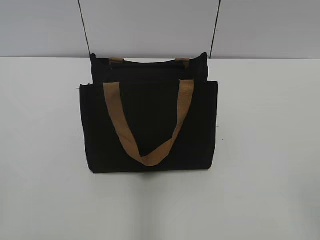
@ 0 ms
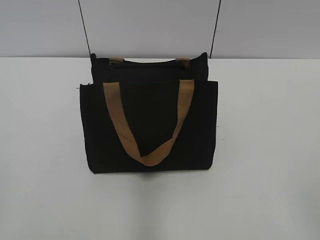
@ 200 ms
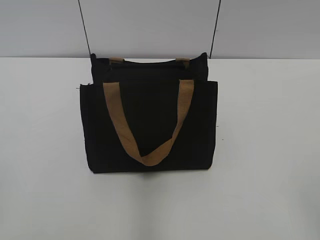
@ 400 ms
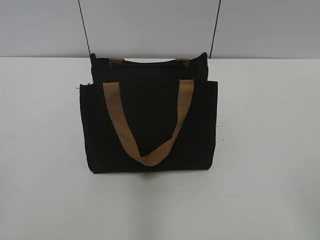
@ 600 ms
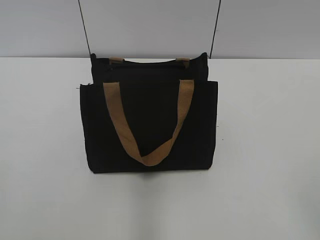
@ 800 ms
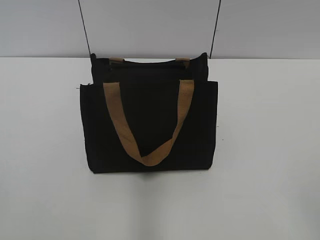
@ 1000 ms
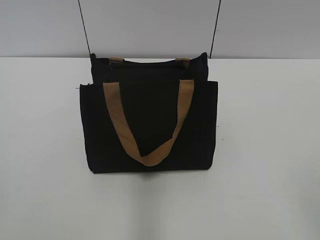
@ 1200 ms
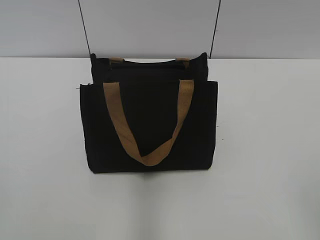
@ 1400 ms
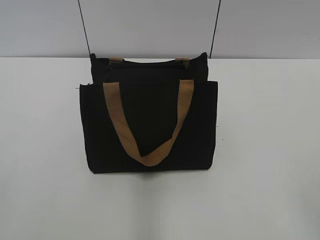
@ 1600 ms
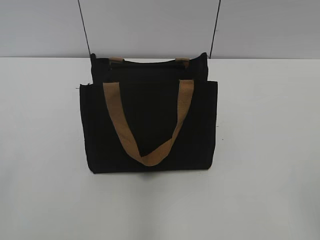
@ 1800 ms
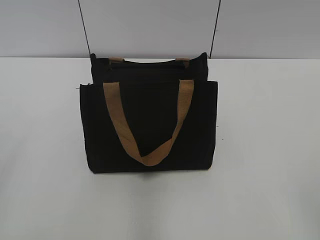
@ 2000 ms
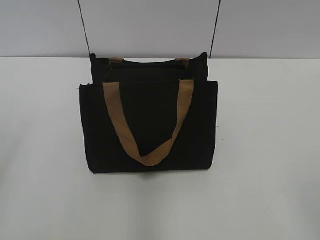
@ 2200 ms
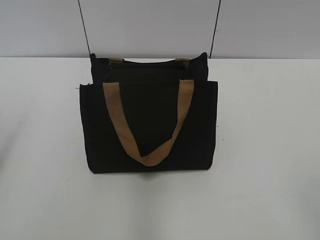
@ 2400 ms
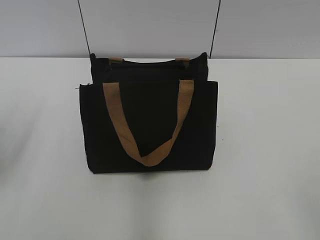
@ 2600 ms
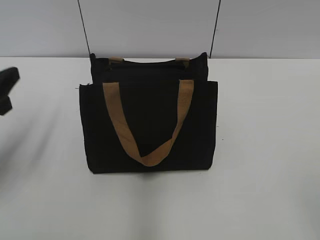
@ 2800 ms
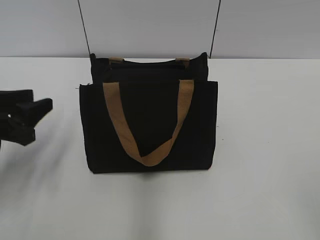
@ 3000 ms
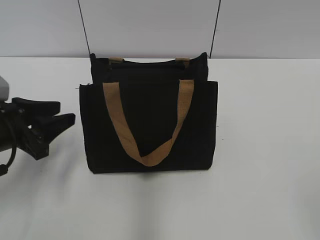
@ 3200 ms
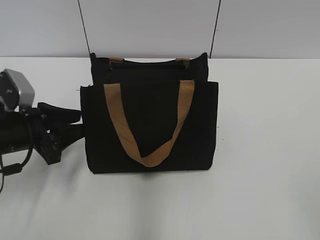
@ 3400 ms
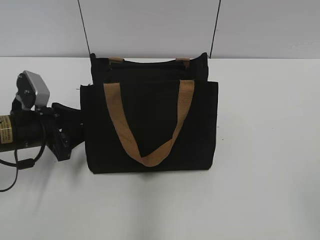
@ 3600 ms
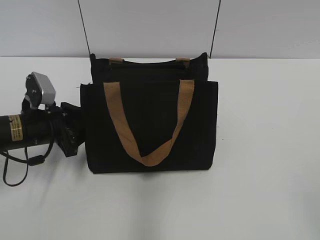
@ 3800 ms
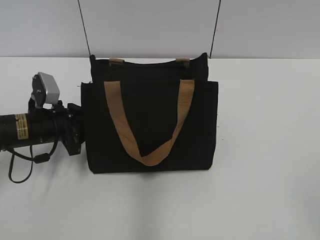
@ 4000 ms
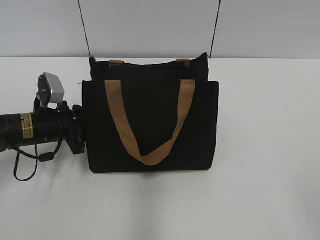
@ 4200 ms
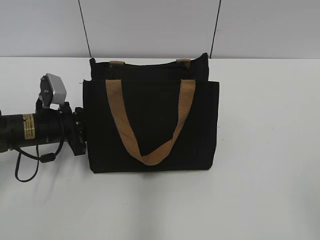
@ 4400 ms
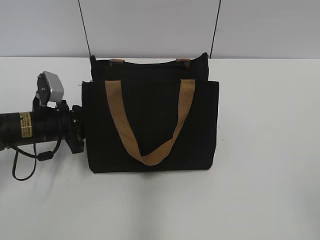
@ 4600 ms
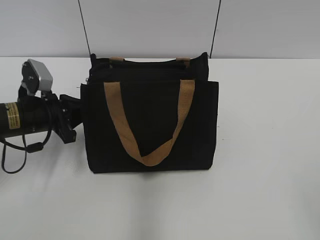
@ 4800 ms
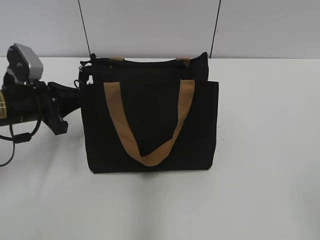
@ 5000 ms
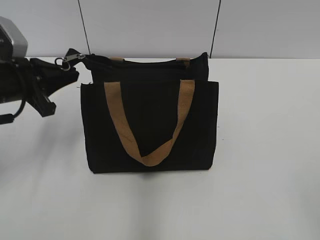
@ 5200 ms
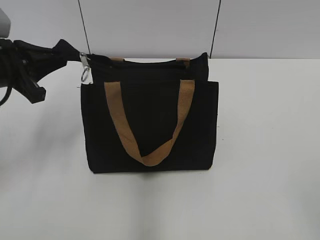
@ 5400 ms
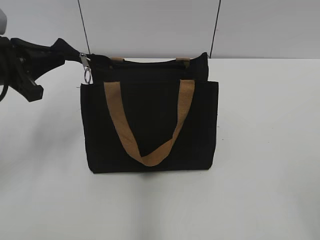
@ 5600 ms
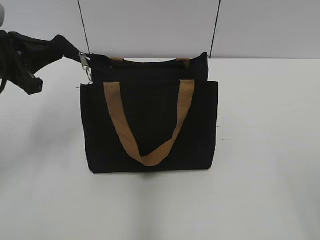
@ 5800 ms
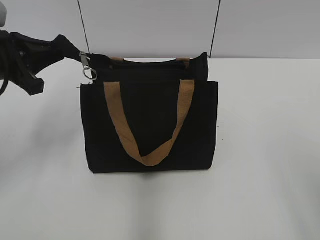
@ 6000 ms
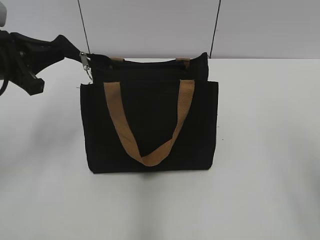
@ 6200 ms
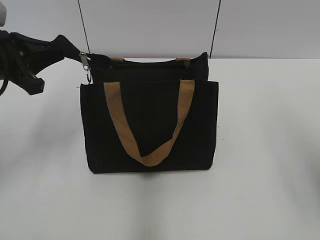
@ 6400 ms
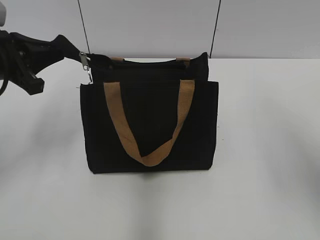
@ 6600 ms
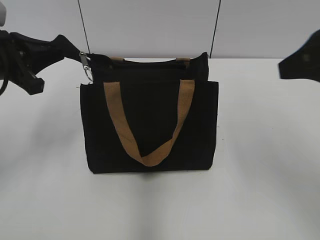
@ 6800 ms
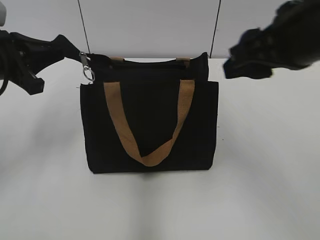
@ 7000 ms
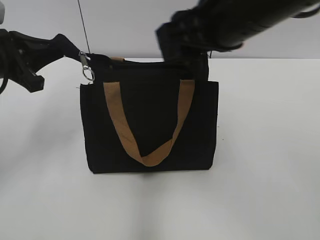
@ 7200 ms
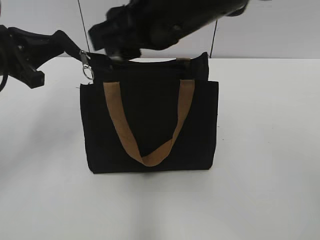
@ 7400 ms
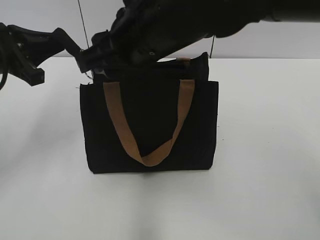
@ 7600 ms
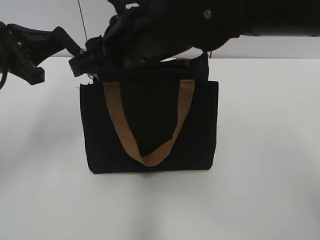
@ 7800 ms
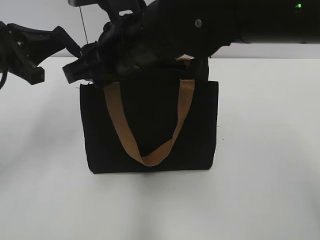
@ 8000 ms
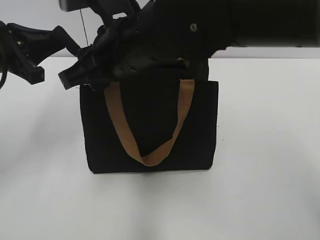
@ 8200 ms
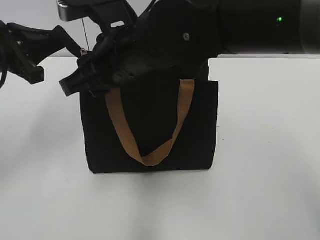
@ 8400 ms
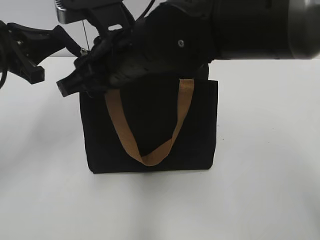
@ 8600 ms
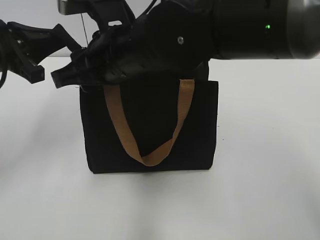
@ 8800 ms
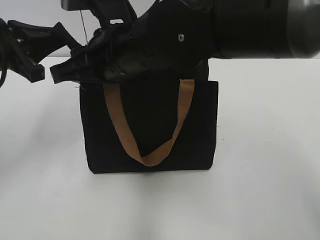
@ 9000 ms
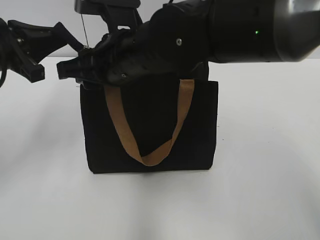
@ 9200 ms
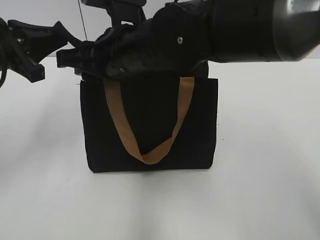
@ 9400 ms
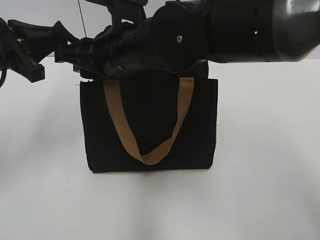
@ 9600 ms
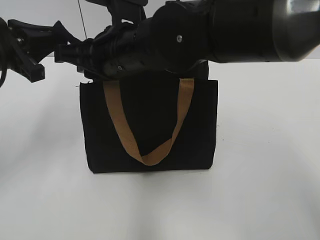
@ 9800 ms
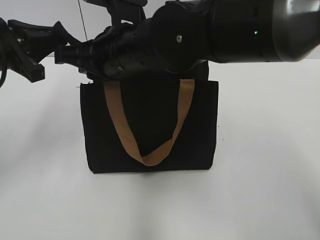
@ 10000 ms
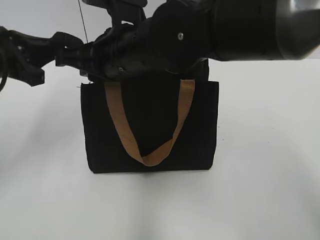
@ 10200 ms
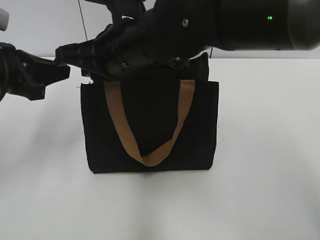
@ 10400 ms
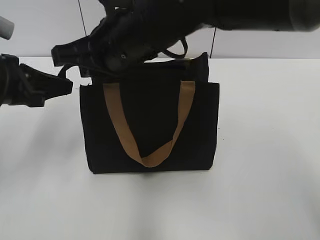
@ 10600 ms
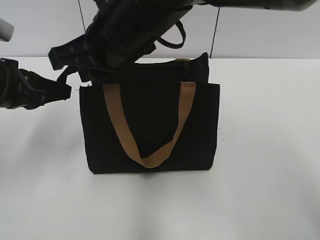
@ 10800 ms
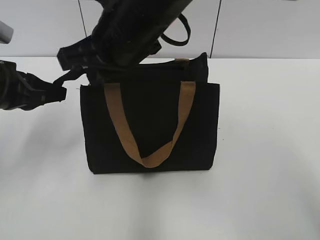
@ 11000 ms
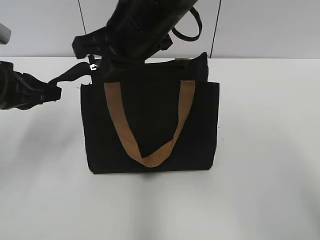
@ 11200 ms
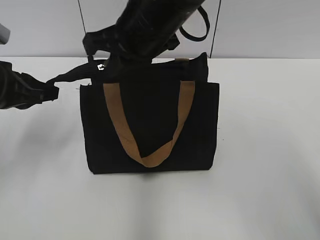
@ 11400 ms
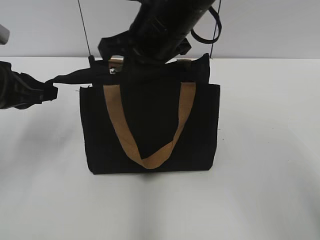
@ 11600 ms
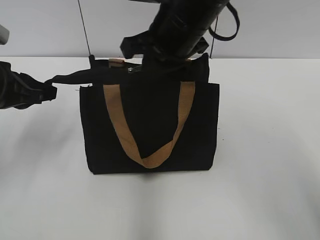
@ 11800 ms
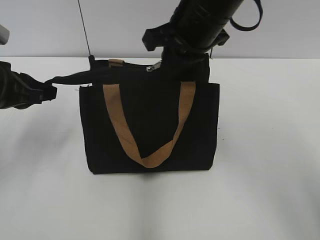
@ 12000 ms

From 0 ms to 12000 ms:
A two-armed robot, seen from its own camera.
From 1600 ms to 3000 ms: The left gripper shifts approximately 25 cm forward and downward.
From 3000 ms to 4400 ms: The left gripper goes approximately 15 cm forward, downward and to the right, and closes.
From 4400 ms to 6000 ms: The left gripper is displaced upward by some 15 cm; the right gripper heads upward, covering approximately 5 cm.
From 6000 ms to 7600 ms: The right gripper travels to the left and forward by roughly 35 cm.
From 7600 ms to 9000 ms: The grippers move only a little.
From 9000 ms to 10400 ms: The right gripper closes.
From 10400 ms to 12000 ms: The right gripper goes some 10 cm to the right.

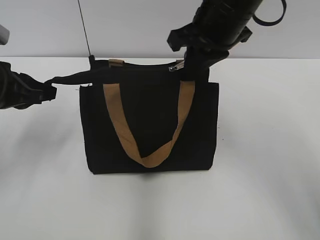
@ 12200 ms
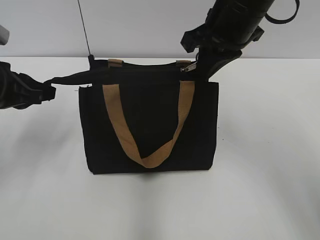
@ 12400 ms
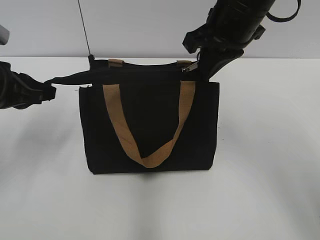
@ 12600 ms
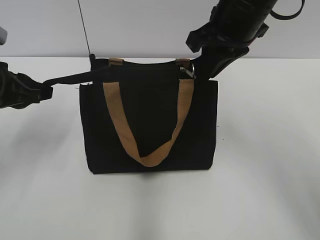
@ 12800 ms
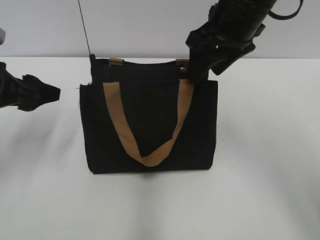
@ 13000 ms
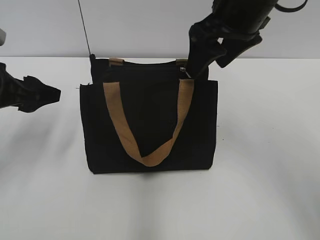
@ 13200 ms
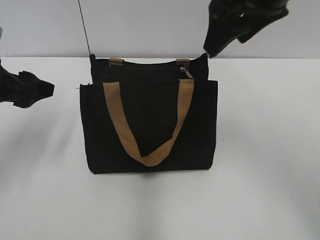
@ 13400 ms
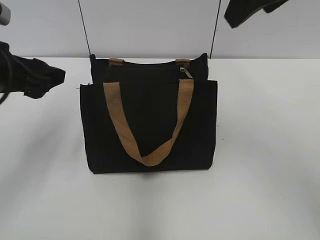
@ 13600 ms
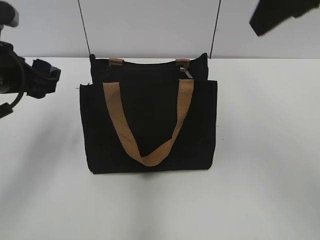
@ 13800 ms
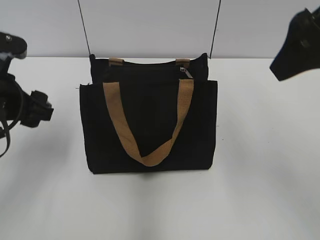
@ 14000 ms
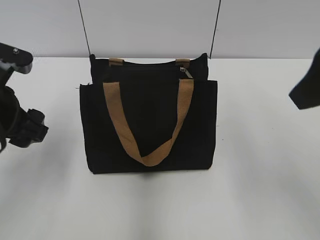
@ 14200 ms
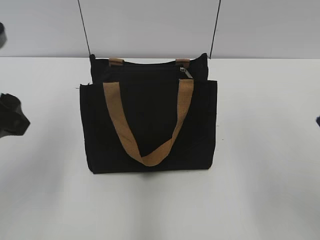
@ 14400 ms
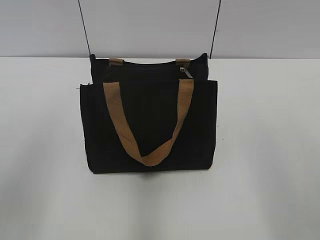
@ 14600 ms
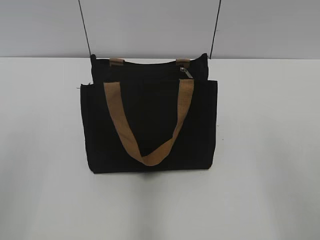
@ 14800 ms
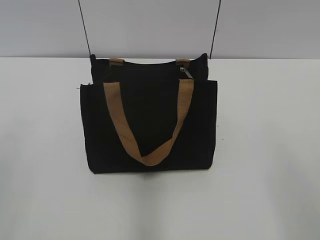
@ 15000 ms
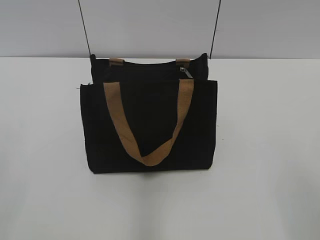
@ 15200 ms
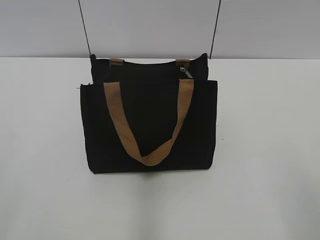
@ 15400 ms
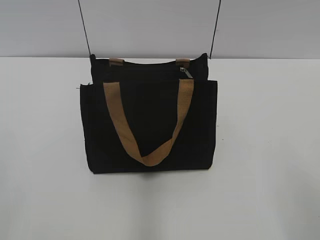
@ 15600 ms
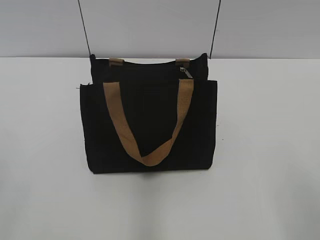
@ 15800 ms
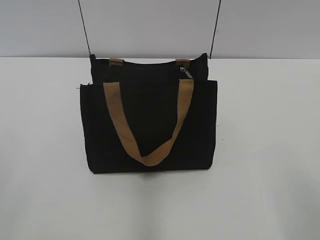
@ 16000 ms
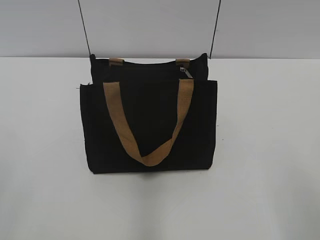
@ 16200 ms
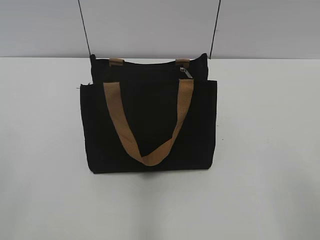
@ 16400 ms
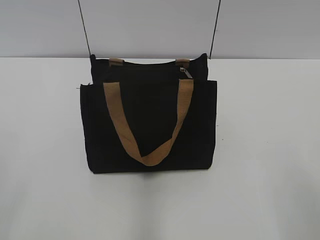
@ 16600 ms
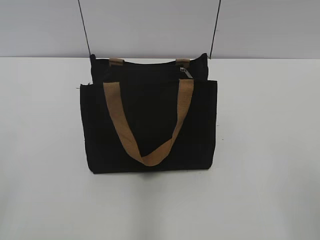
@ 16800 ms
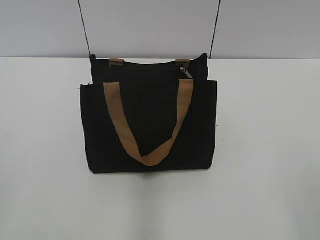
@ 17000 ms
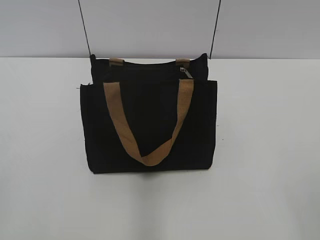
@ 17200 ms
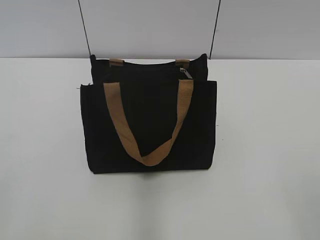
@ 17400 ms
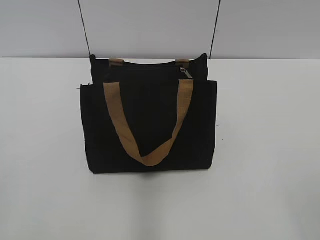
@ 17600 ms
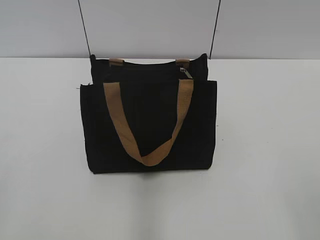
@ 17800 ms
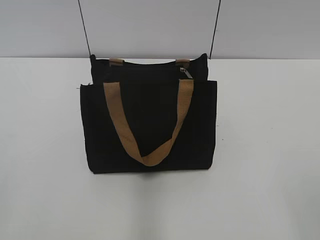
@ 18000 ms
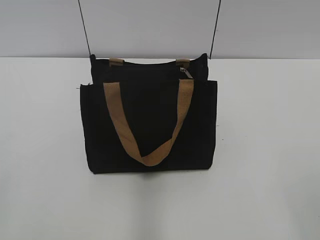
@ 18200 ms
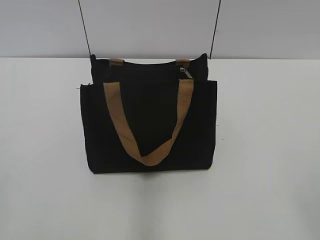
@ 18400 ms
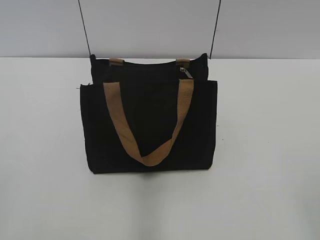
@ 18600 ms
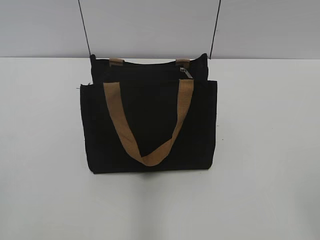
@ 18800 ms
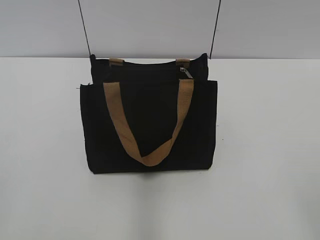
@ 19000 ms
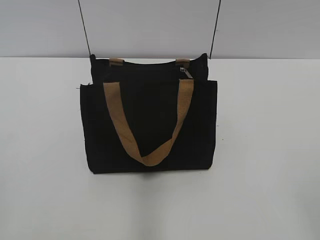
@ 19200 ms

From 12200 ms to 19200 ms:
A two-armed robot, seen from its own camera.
Step, from 13000 ms to 13400 ms: Grab the zipper with your left hand.
From 12200 ms to 13600 ms: The left gripper opens its fingers. The right gripper shifts approximately 15 cm upward, to the right and backward, and opens its fingers.
From 13600 ms to 15000 ms: The right gripper heads backward and to the right, covering about 25 cm; the left gripper is displaced backward and upward by roughly 25 cm.

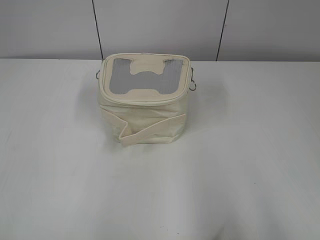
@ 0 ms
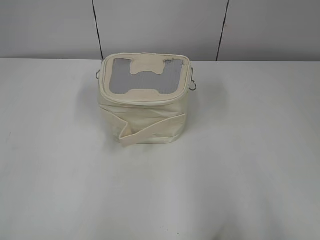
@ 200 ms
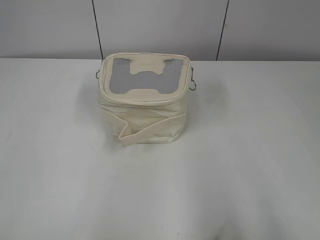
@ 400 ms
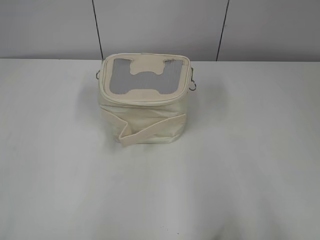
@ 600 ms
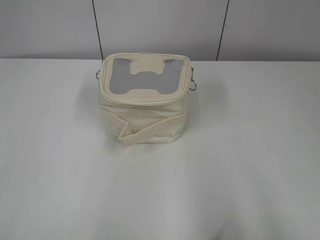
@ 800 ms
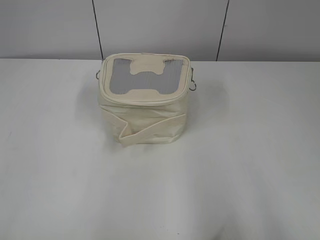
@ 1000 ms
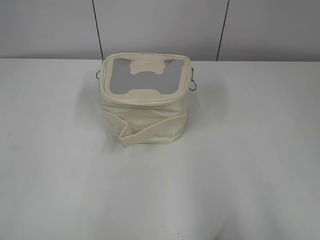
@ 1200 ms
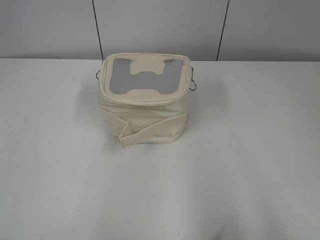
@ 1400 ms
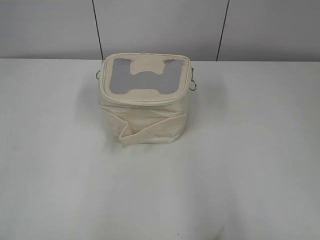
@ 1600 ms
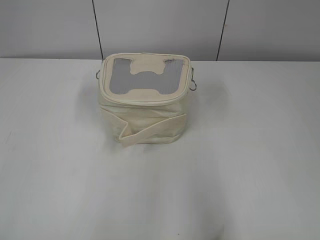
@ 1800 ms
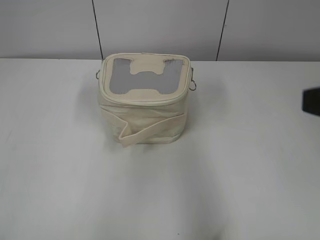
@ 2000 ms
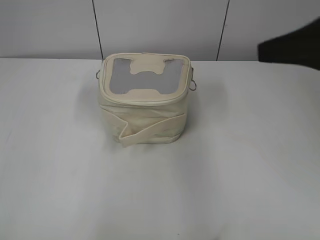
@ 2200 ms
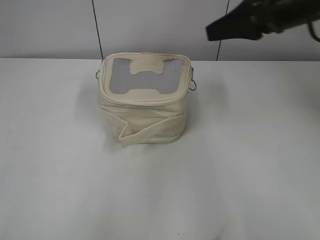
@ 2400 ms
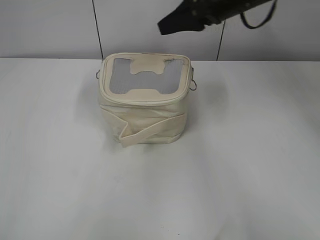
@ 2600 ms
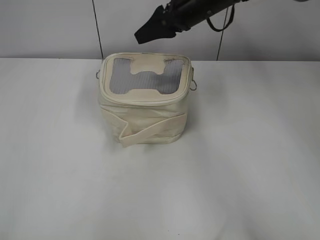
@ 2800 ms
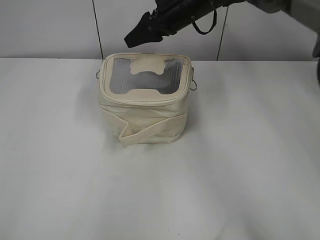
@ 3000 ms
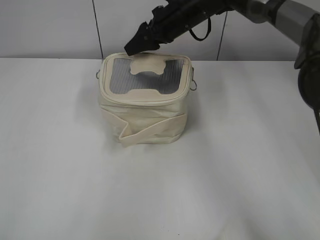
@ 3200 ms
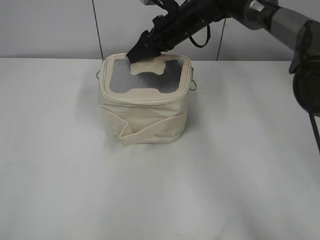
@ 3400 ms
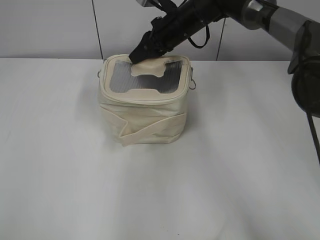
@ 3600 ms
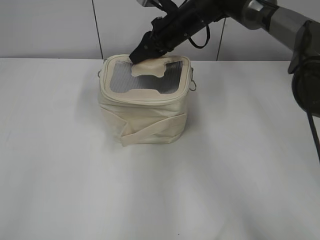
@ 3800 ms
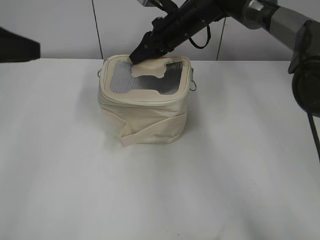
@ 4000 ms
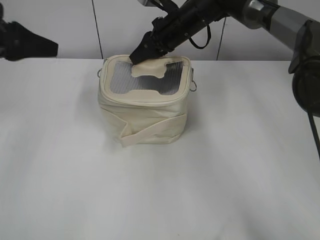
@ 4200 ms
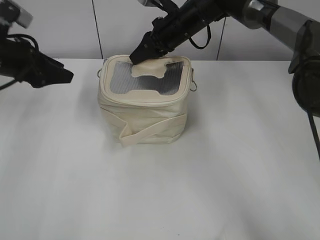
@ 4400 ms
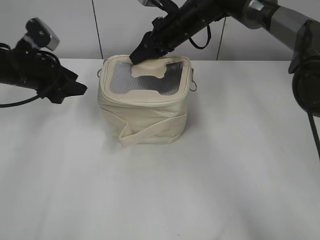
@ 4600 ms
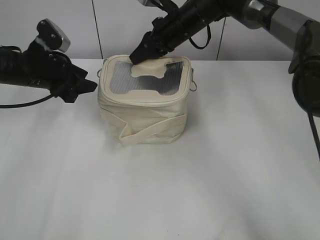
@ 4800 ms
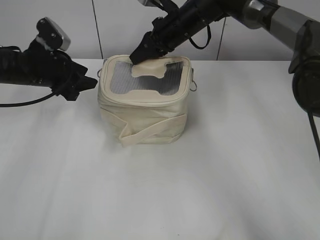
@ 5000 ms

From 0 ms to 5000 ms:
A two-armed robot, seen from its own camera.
From 1600 ms to 3400 ms: The right gripper moves forward and to the left, some 60 cm.
From 3400 ms to 5000 ms: The right gripper closes its fingers. Meanwhile the left gripper heads forward, covering about 40 cm.
